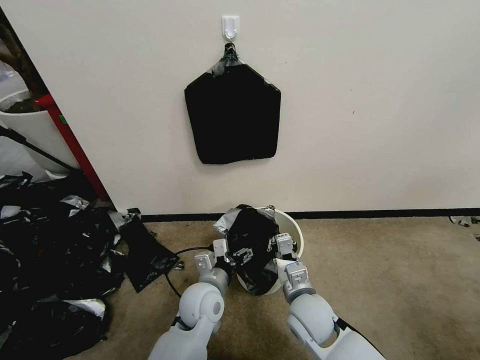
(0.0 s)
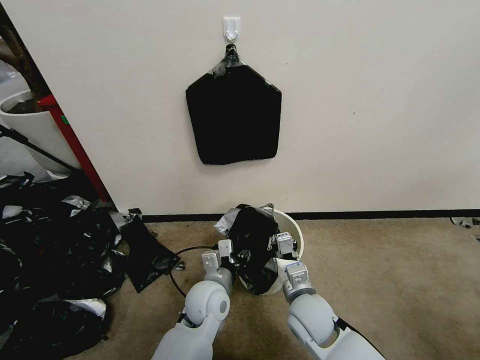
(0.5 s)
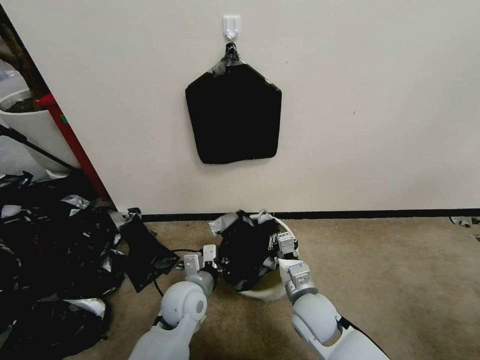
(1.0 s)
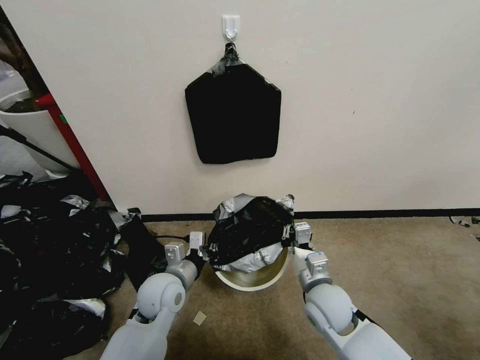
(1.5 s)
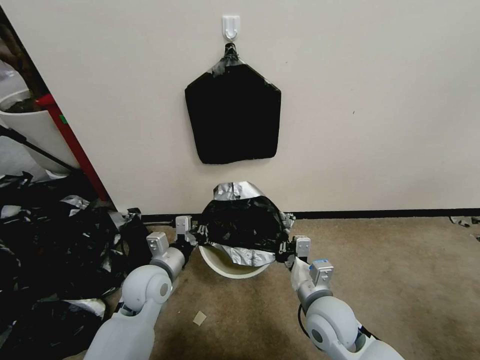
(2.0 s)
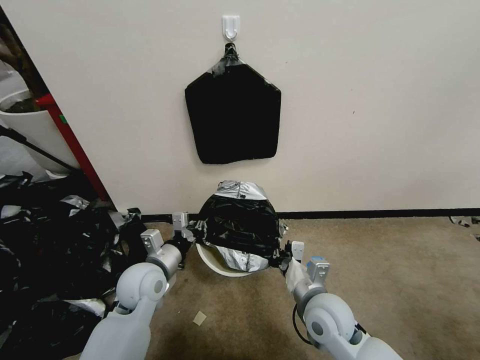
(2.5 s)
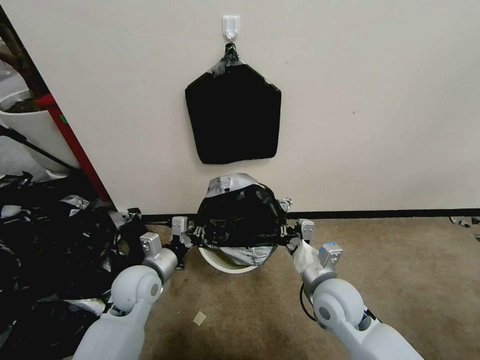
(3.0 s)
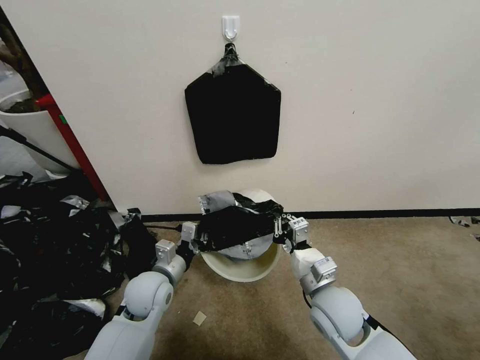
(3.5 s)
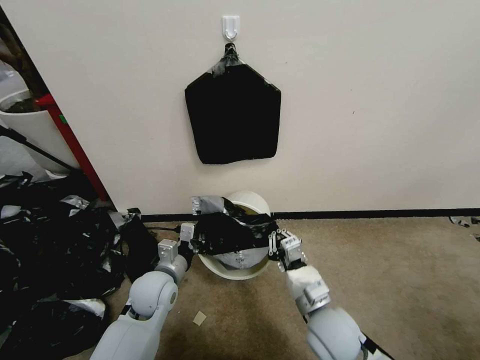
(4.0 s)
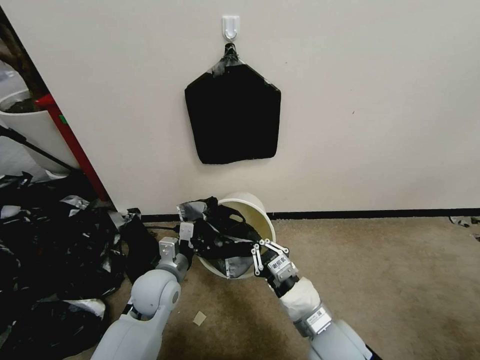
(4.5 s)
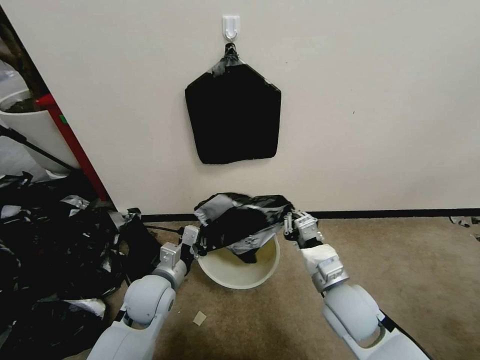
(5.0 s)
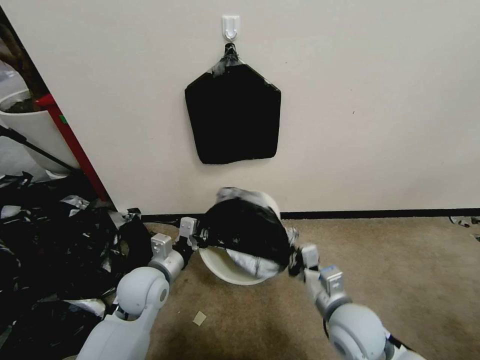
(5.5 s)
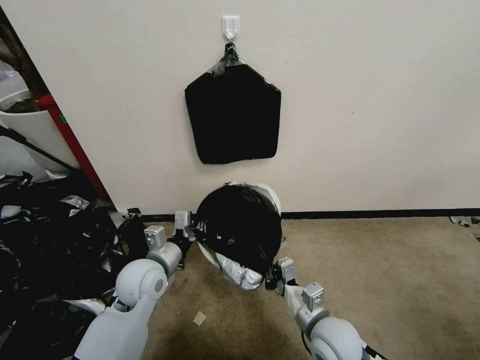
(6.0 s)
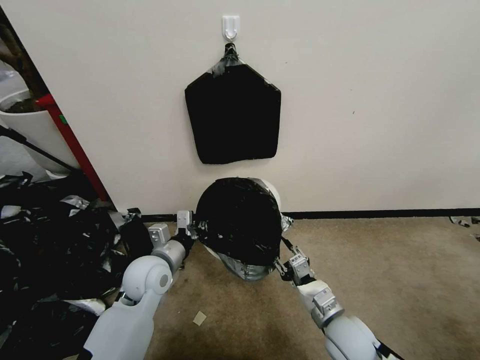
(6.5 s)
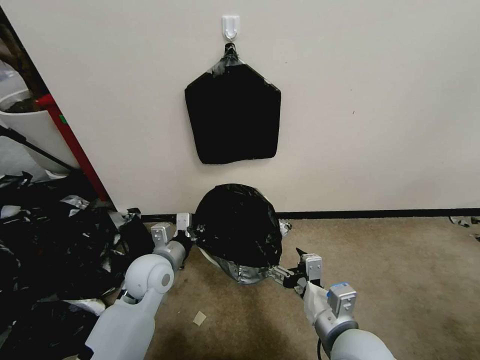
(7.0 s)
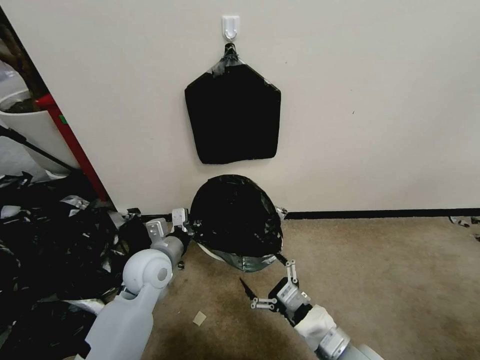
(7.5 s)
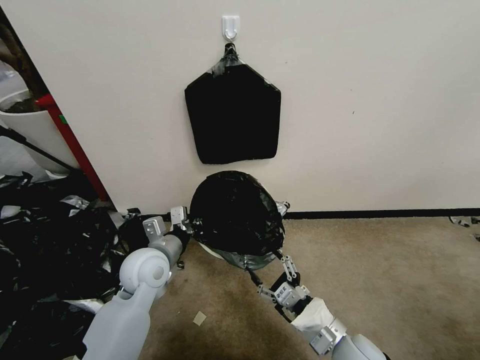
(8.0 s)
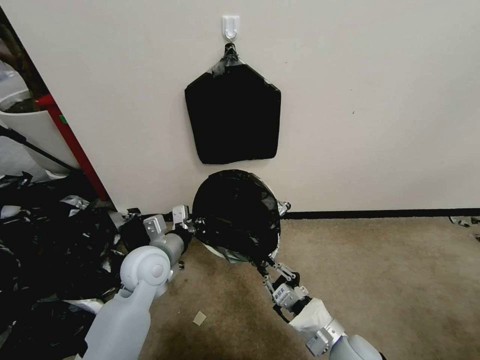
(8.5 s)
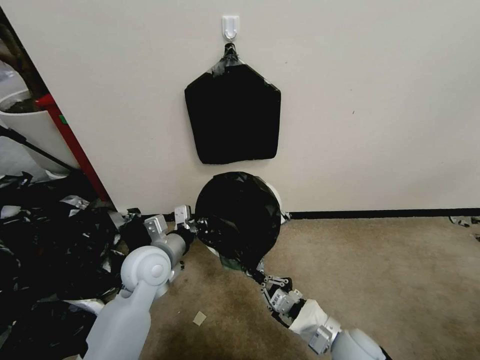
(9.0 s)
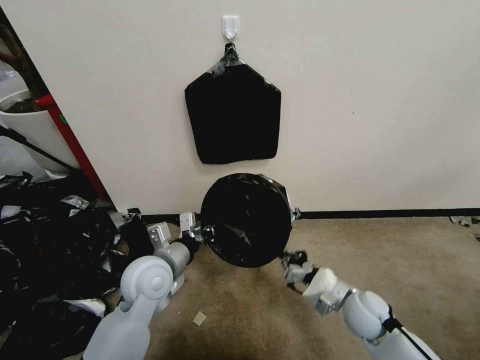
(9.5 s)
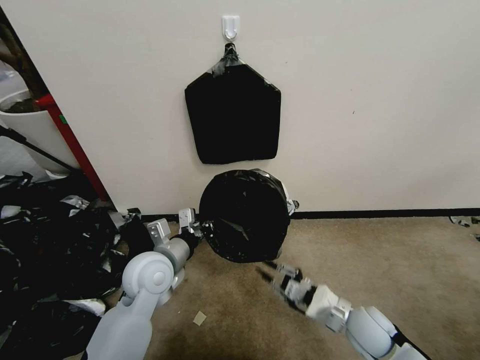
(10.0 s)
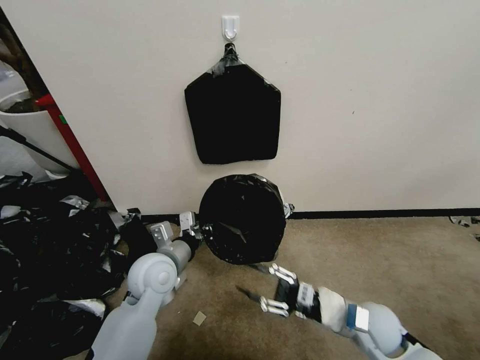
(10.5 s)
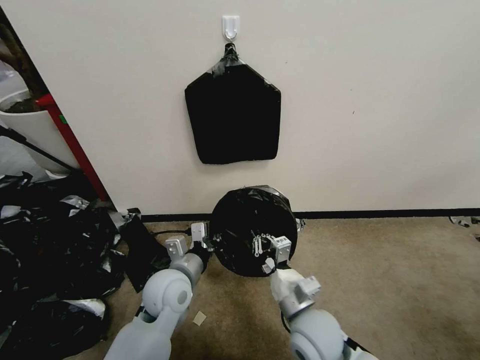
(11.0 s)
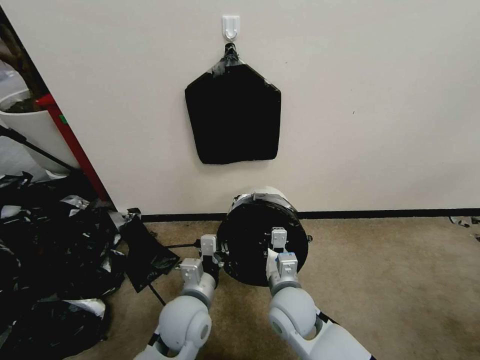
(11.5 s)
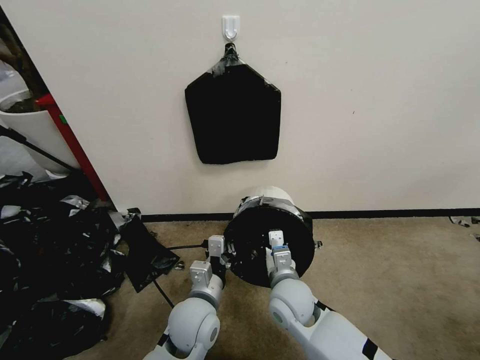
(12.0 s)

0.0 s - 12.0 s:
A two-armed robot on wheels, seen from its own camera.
Task of the whole recording: Place a trash bag onto the trash bin.
0.0 s - 2.0 s: The left gripper goes some 10 cm to the left, and closes.
4.0 s - 6.0 s: The left gripper goes about 5 cm upward.
6.0 s - 8.0 s: The right gripper goes upward and returns, some 10 cm each way, and opens up.
8.0 s - 10.0 s: The right gripper goes approximately 10 cm to the right and forward, and closes.
10.0 s - 12.0 s: The left gripper goes approximately 15 cm to the right, downward and backward. Meanwhile the right gripper shifts roughly 20 cm to the left.

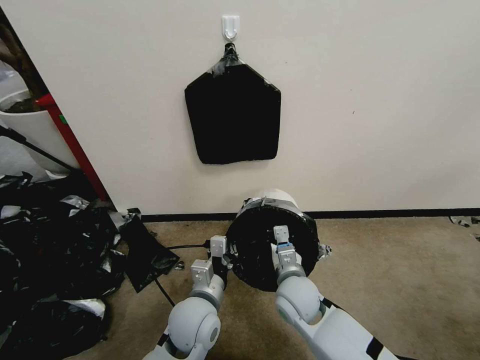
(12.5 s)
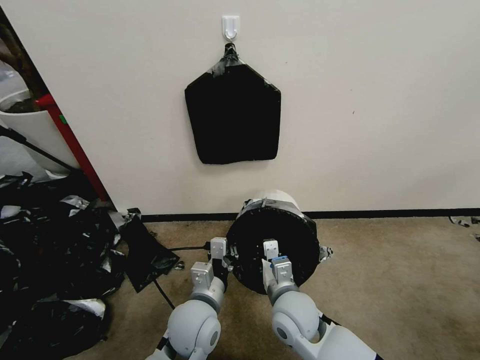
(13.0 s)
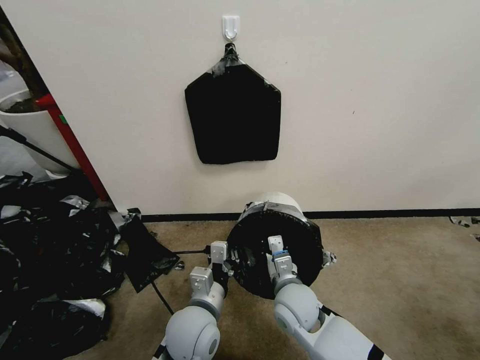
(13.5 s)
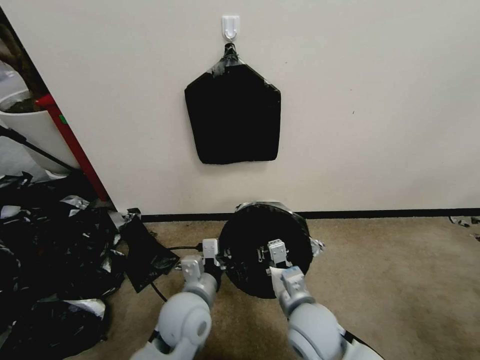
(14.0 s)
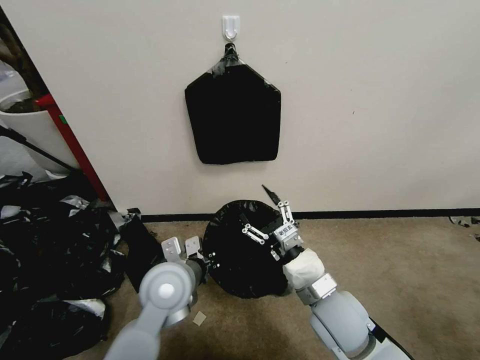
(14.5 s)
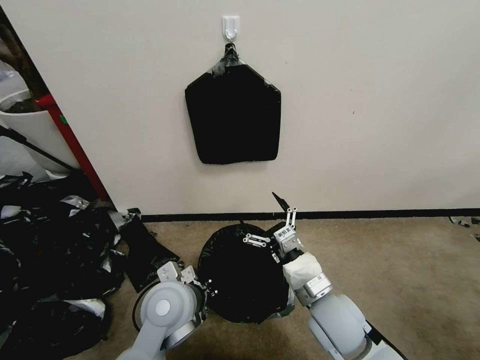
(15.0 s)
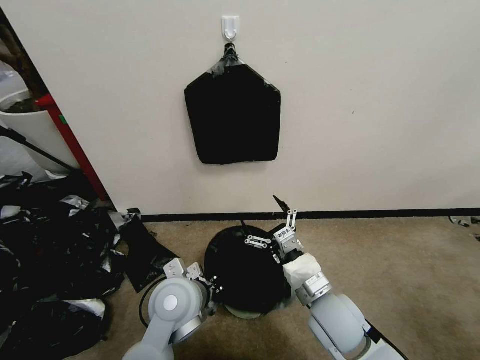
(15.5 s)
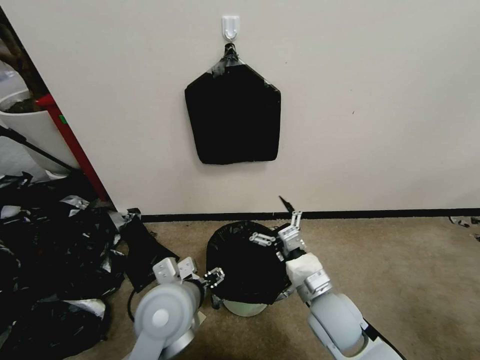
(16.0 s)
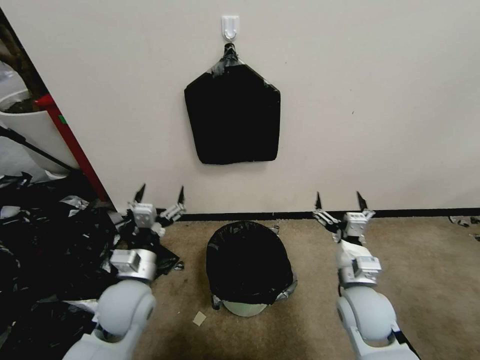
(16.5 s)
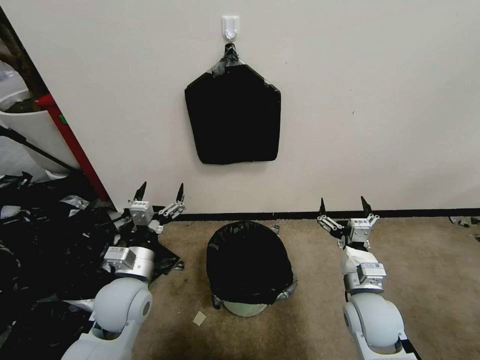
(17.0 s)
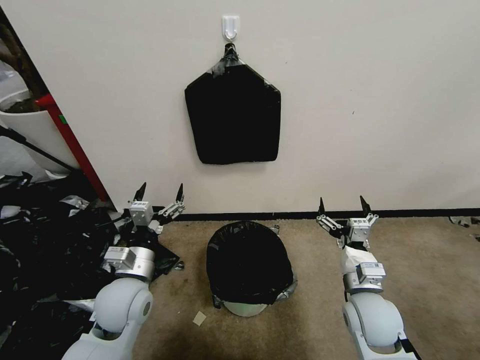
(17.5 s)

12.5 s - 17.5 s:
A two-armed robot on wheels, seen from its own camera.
Task of the whole recording: Place a trash bag onto the trash bin.
12.5 s - 15.0 s: The left gripper shifts approximately 5 cm upward, while the right gripper goes about 10 cm upward, backward and to the right, and opens up.
15.0 s - 17.5 s: The left gripper goes some 10 cm to the left, and opens up; the right gripper is displaced to the right by roughly 10 cm.

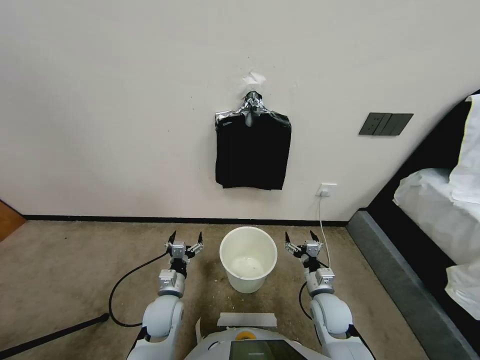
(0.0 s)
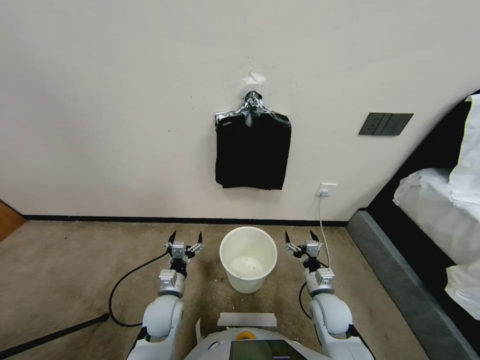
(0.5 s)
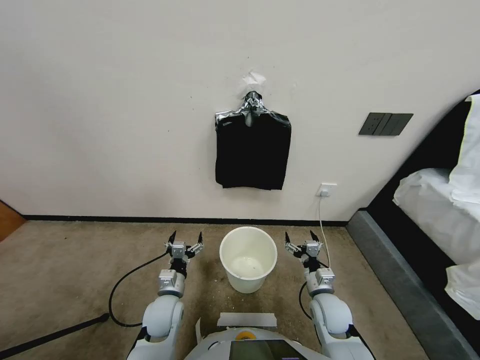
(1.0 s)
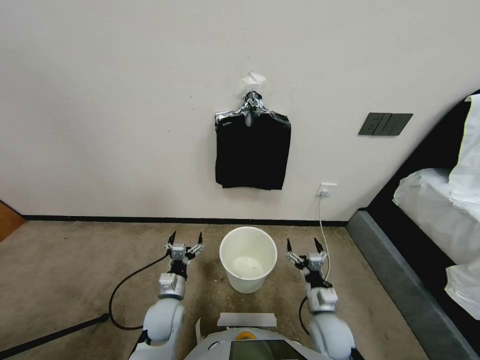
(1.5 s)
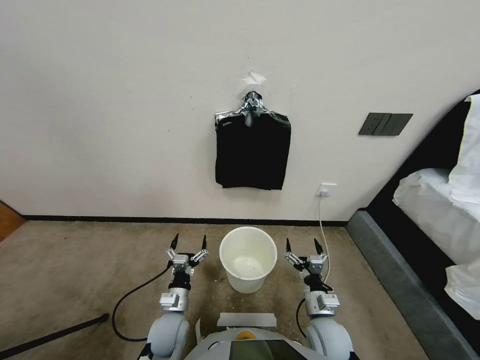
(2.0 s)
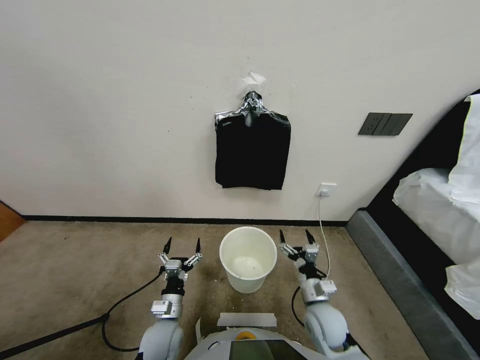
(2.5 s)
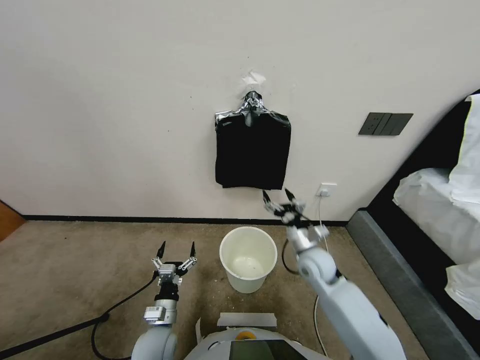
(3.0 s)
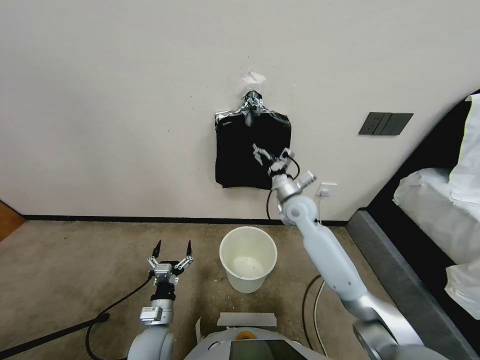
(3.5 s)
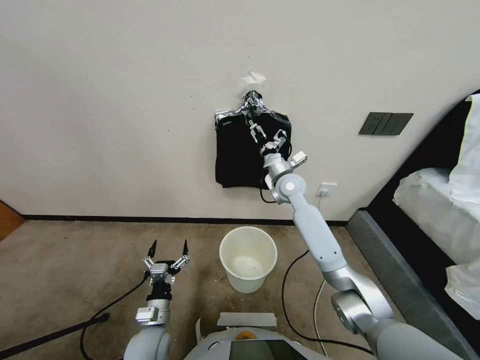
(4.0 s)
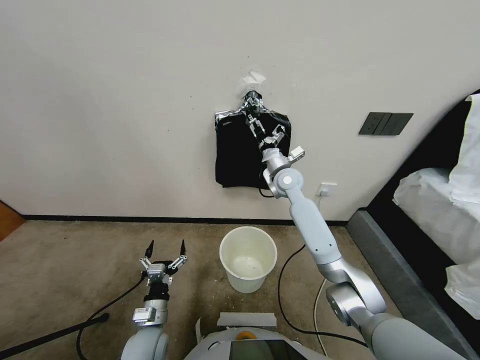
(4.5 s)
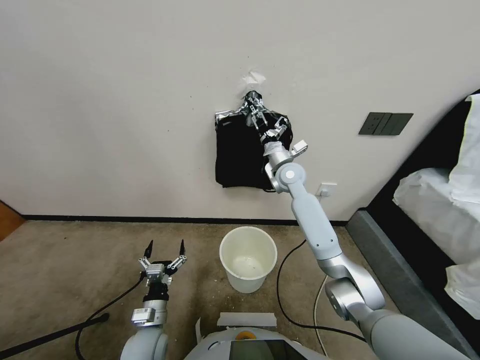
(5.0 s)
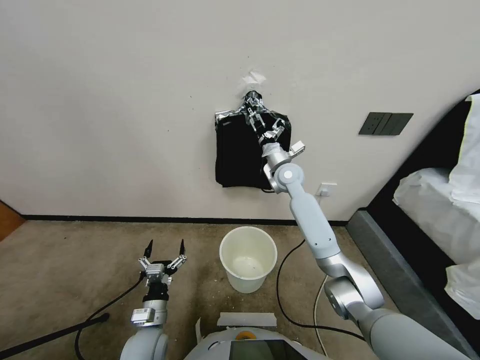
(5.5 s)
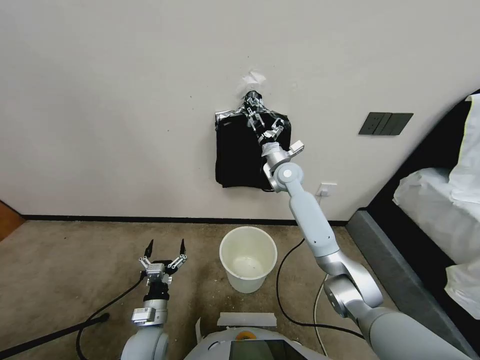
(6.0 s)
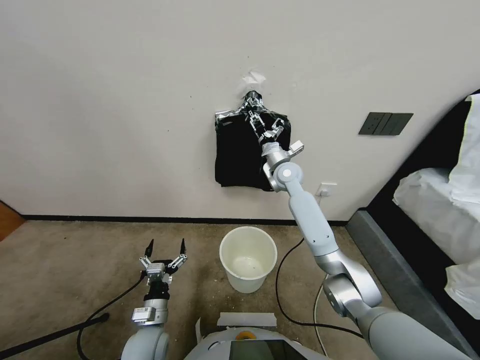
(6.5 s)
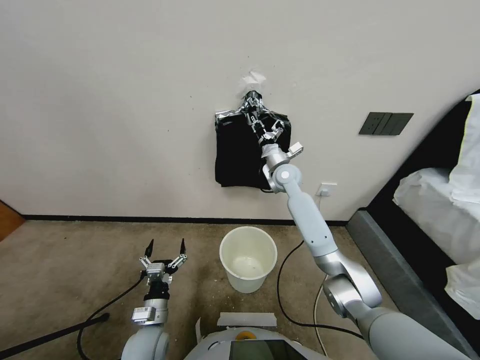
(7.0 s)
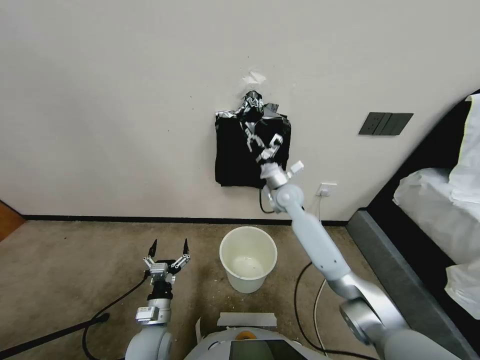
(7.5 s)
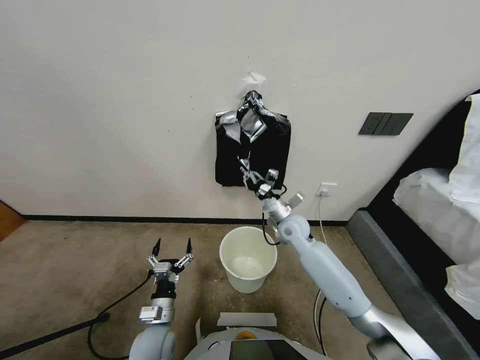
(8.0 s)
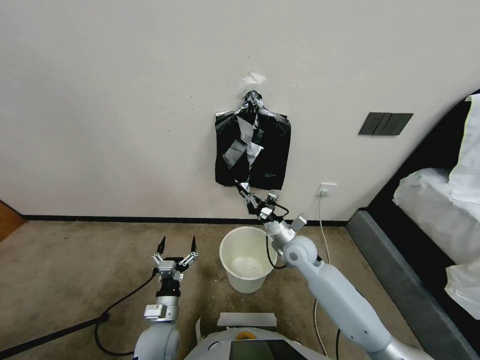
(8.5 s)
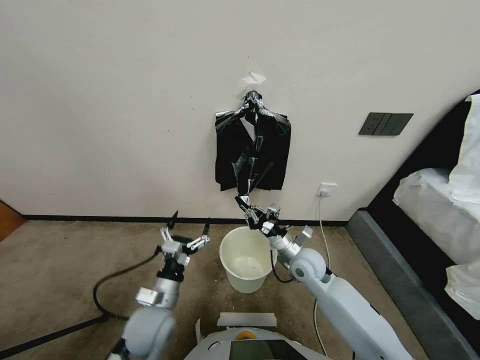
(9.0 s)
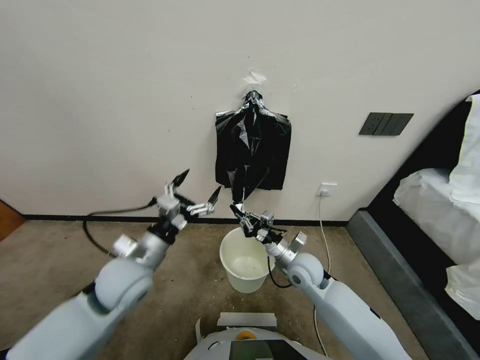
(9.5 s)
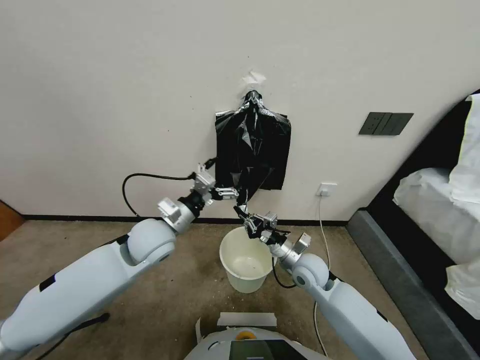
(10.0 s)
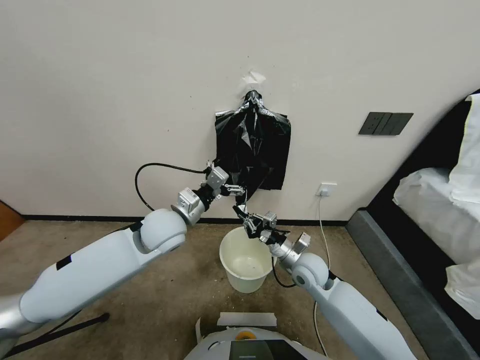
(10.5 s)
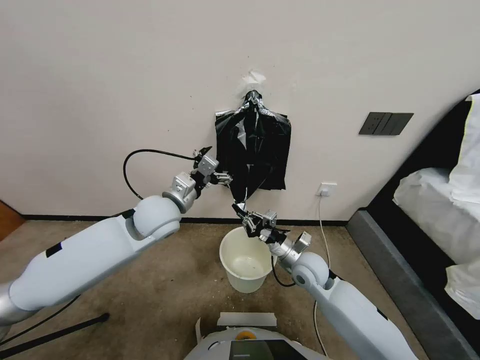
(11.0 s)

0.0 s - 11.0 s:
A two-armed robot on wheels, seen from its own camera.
Task of the whole recording: Place a trash bag onto the trash bin.
2.0 s - 3.5 s: The right gripper is displaced forward and upward by about 35 cm.
3.5 s - 5.5 s: The right gripper shifts some 5 cm forward.
5.5 s - 7.5 s: The right gripper shifts about 10 cm downward and backward, and closes its fingers.
7.5 s - 9.0 s: The left gripper heads upward, covering approximately 10 cm. The right gripper travels backward and downward by roughly 15 cm.
9.0 s - 11.0 s: The left gripper moves forward and upward, some 25 cm.
